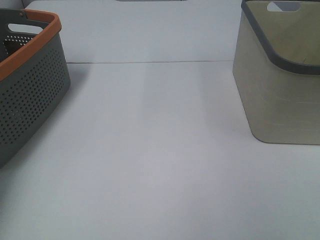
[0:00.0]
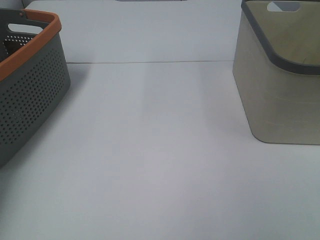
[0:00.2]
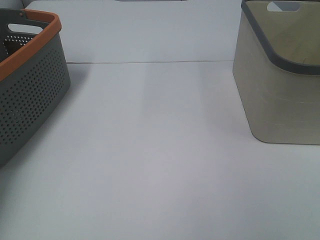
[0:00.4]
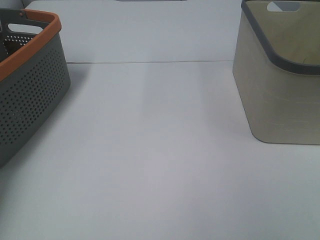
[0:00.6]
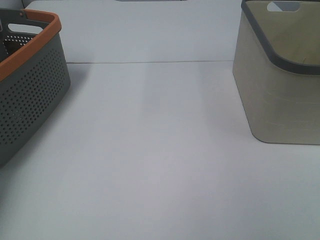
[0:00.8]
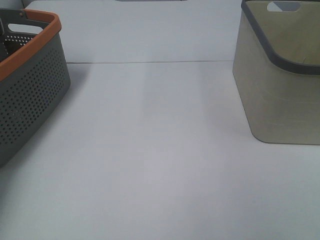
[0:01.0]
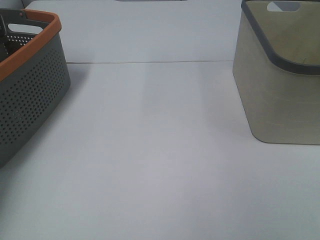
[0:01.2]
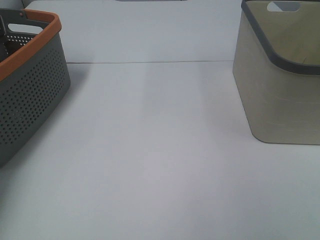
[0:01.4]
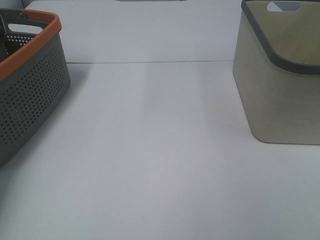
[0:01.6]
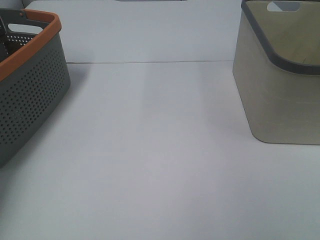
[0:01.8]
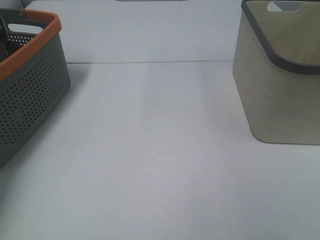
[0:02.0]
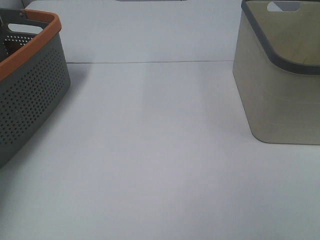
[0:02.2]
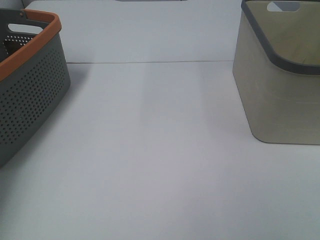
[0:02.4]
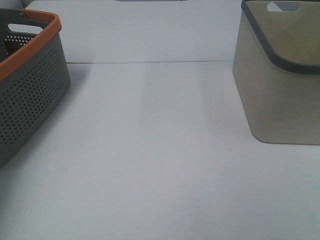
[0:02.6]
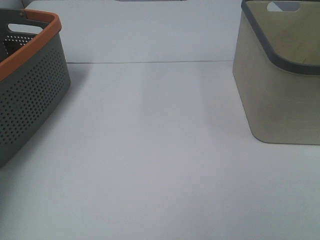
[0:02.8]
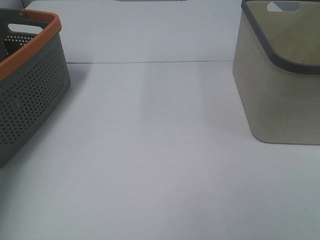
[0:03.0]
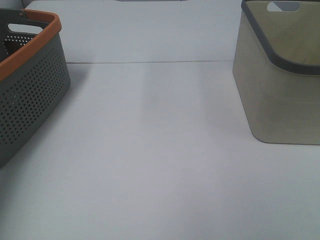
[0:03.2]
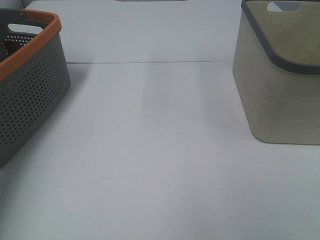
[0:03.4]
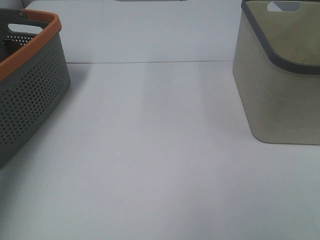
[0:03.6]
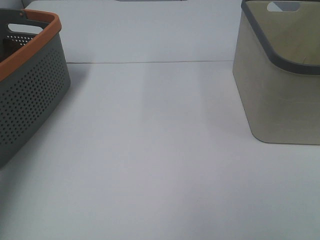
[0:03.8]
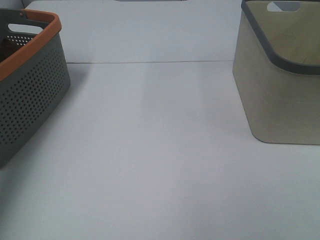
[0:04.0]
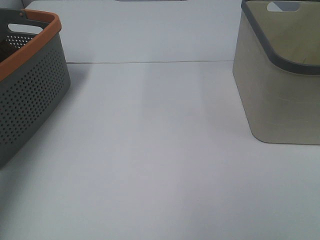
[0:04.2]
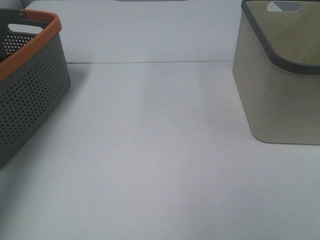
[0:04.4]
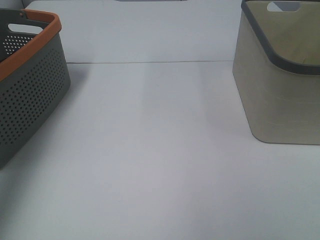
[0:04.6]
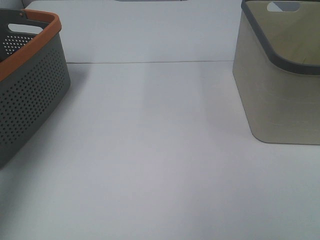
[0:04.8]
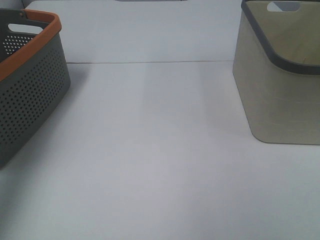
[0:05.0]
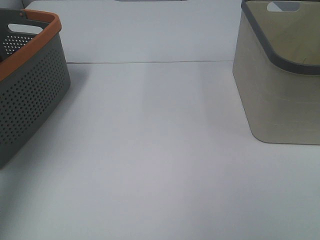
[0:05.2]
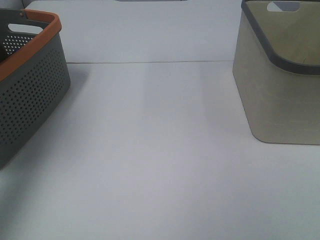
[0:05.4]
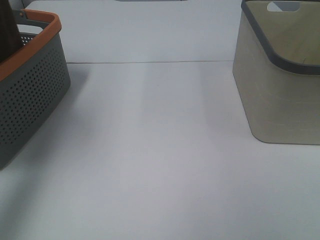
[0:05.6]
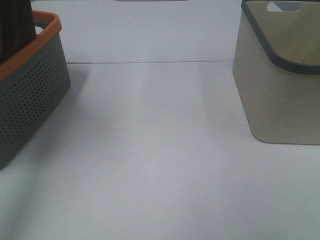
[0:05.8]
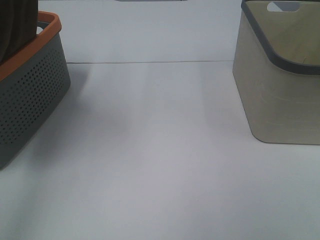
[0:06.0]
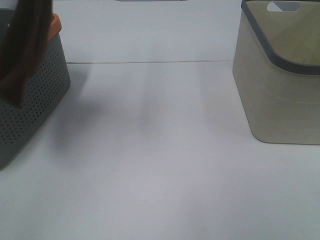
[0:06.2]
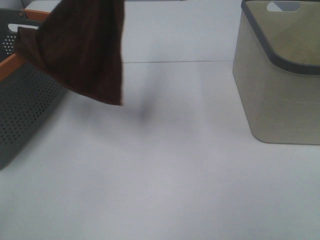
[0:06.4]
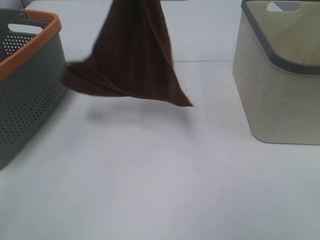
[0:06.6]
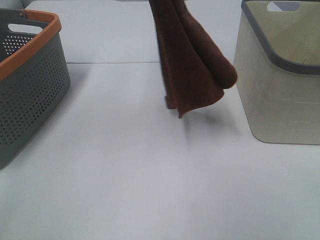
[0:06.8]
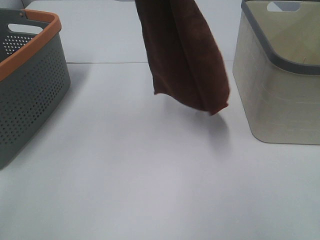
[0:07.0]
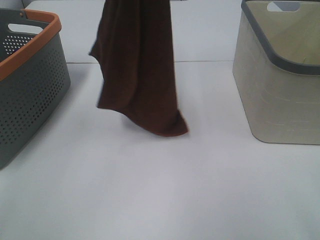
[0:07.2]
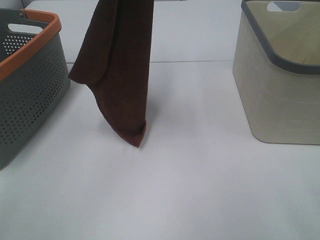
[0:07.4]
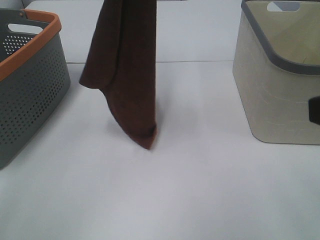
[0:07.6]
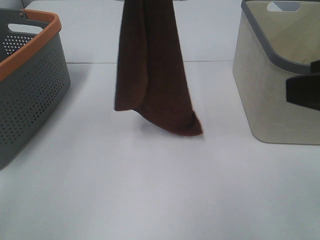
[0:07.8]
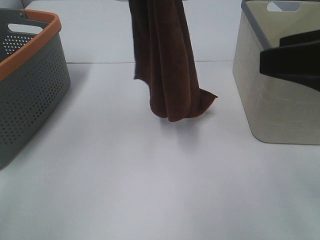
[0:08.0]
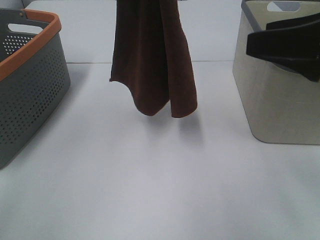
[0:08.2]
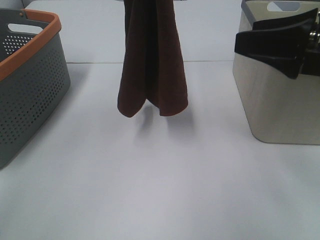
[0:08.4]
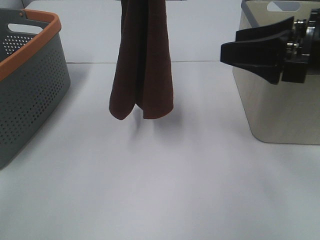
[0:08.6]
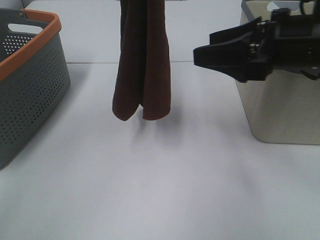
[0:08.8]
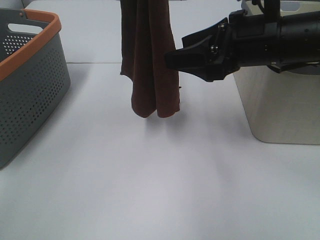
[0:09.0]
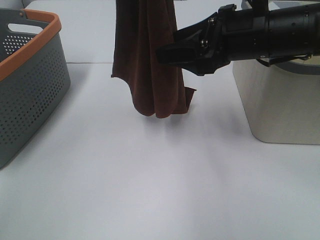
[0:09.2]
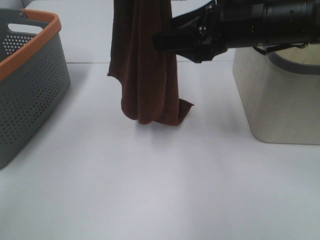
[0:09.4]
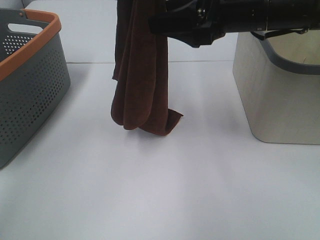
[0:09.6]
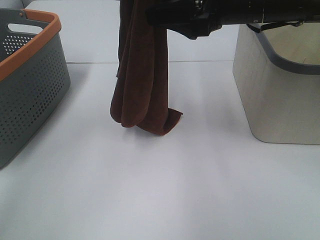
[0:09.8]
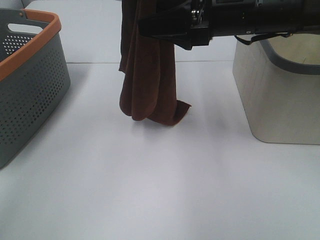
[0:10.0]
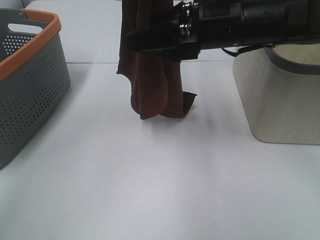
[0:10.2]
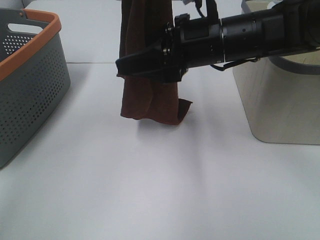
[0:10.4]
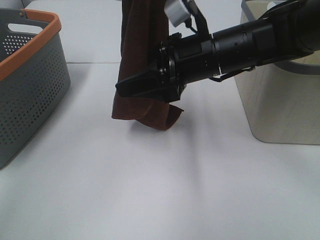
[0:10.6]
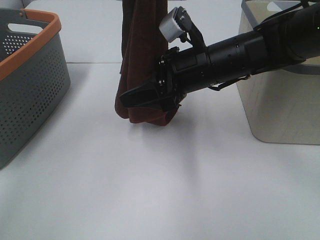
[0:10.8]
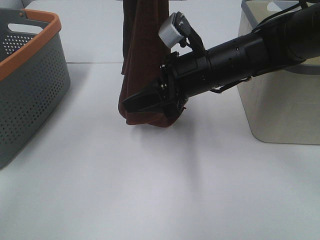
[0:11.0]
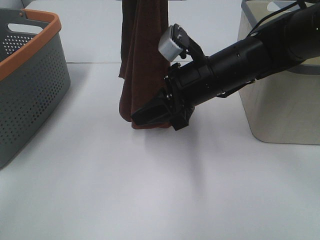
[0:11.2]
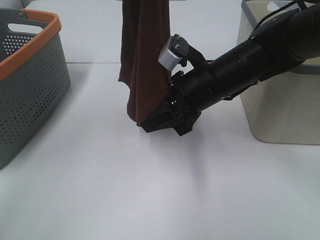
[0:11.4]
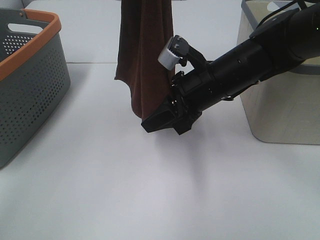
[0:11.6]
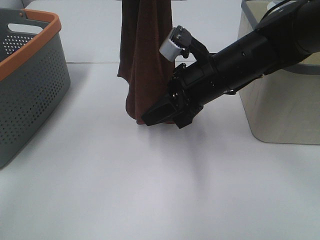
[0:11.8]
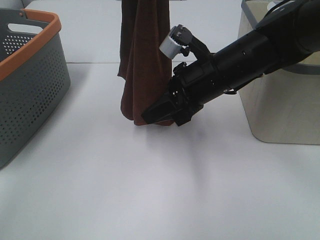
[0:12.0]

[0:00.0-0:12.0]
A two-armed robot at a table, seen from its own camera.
Task of the whole recording: Remove the towel and place it.
Step, 0:04.4 to 0:10.4: Right hand: grab a corner of the brown towel and straighten it.
0:04.4 to 0:06.0: The left gripper is displaced to the right by roughly 15 cm.
0:06.0 to 0:07.6: The right gripper shifts roughly 10 cm forward. Meanwhile the left gripper shifts some 10 cm to the right.
0:07.6 to 0:09.0: The right gripper goes roughly 20 cm forward, to the left and downward.
0:09.0 to 0:10.4: The right gripper moves to the left, about 5 cm.
0:10.4 to 0:12.0: The right gripper closes.

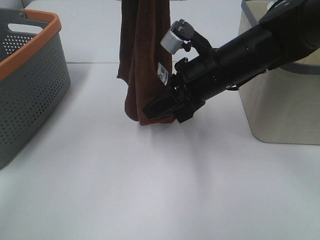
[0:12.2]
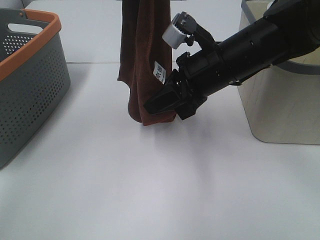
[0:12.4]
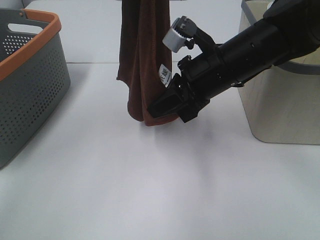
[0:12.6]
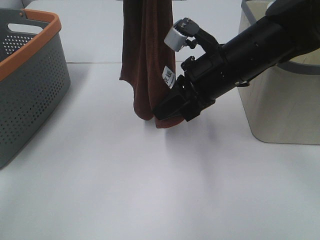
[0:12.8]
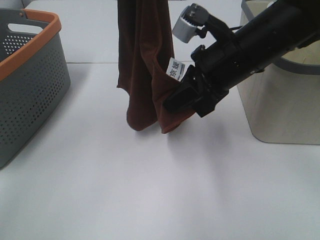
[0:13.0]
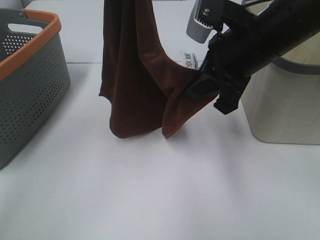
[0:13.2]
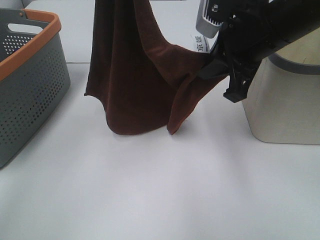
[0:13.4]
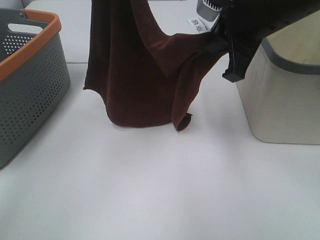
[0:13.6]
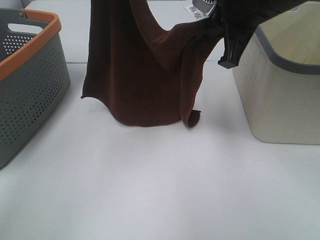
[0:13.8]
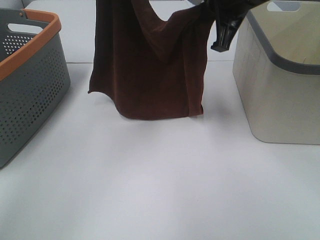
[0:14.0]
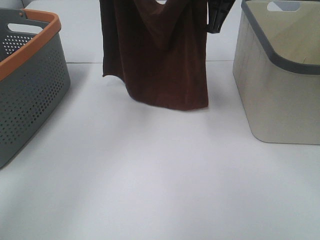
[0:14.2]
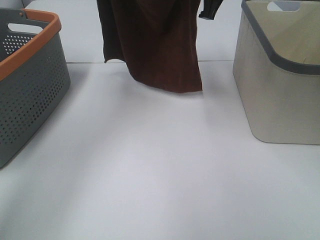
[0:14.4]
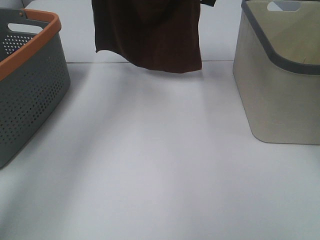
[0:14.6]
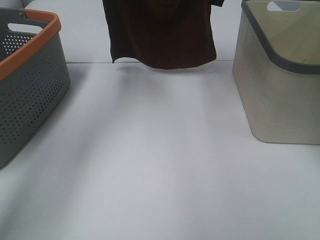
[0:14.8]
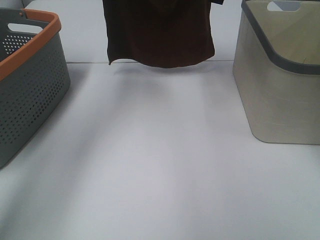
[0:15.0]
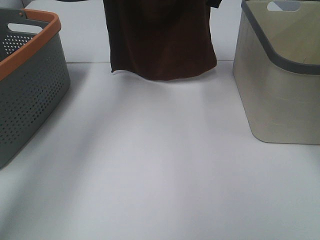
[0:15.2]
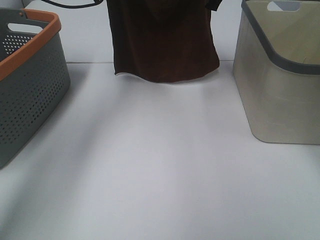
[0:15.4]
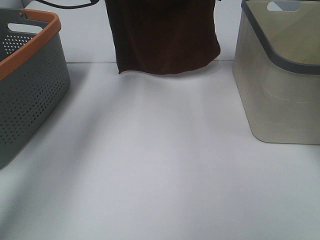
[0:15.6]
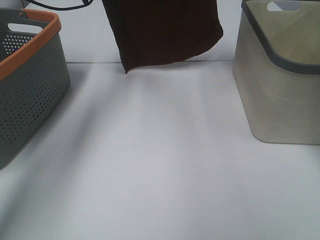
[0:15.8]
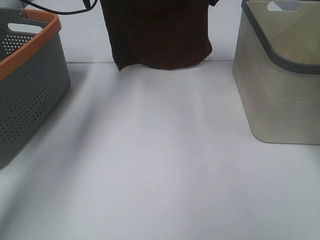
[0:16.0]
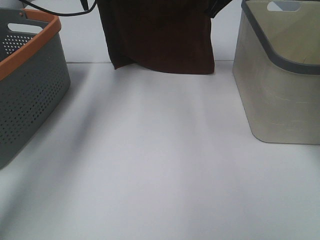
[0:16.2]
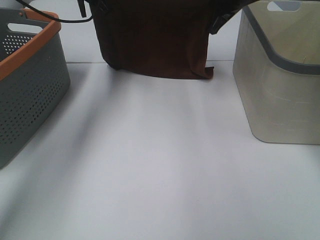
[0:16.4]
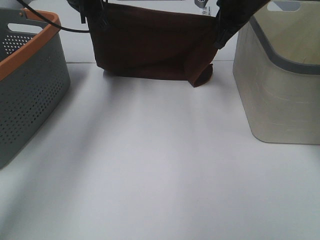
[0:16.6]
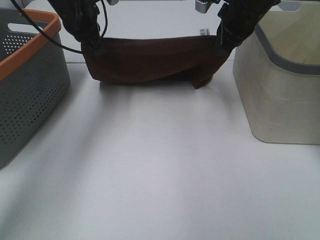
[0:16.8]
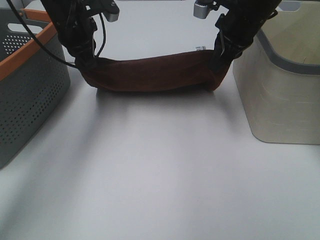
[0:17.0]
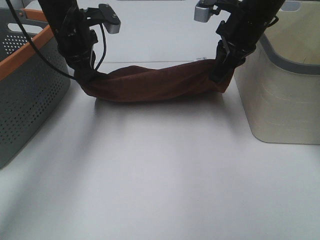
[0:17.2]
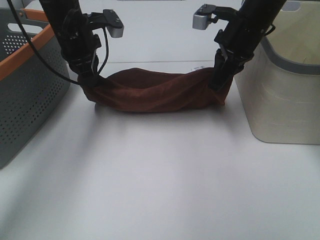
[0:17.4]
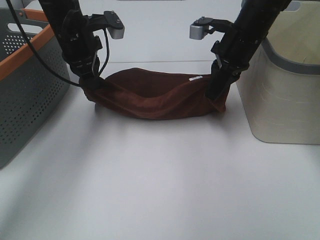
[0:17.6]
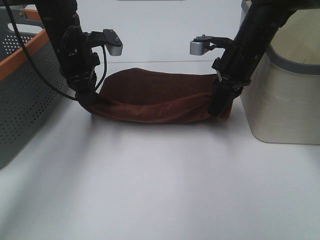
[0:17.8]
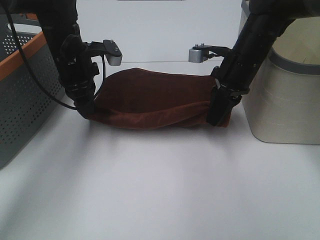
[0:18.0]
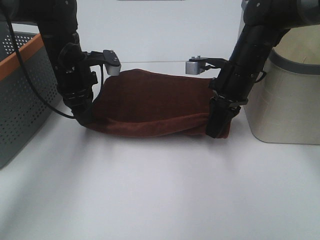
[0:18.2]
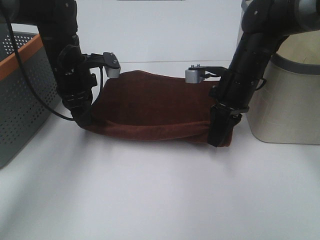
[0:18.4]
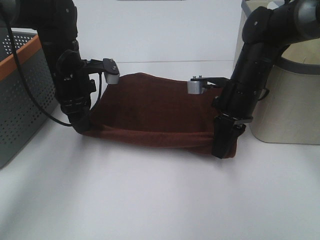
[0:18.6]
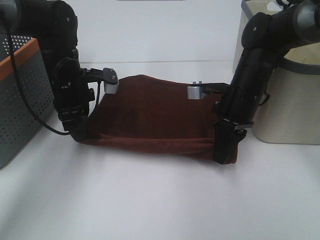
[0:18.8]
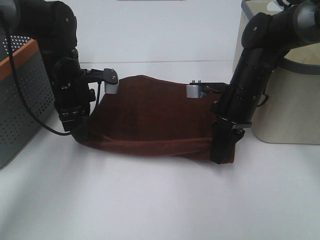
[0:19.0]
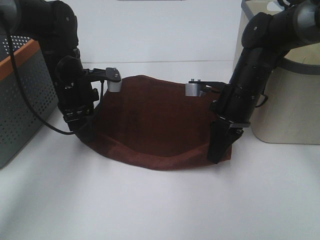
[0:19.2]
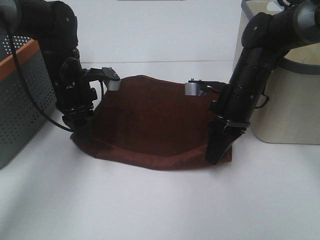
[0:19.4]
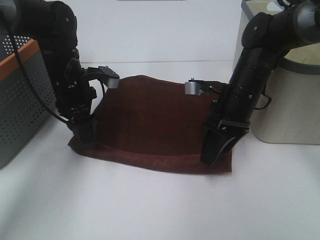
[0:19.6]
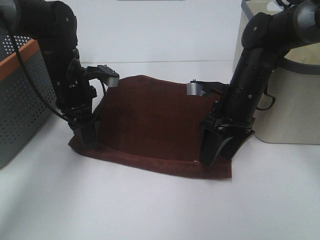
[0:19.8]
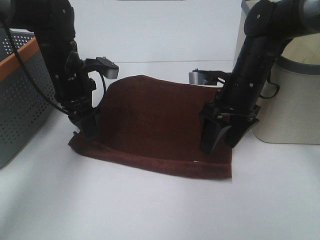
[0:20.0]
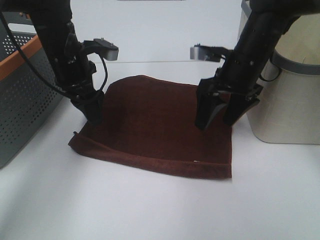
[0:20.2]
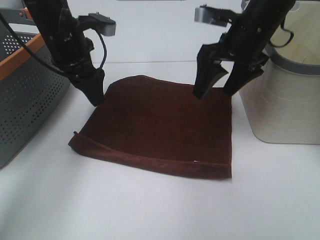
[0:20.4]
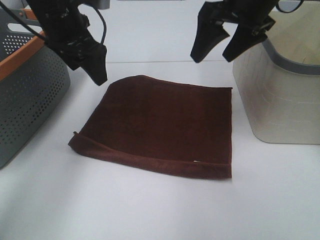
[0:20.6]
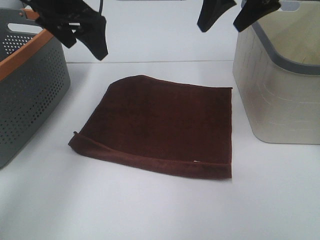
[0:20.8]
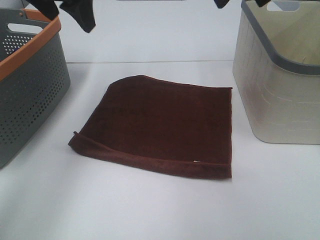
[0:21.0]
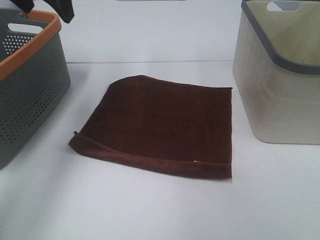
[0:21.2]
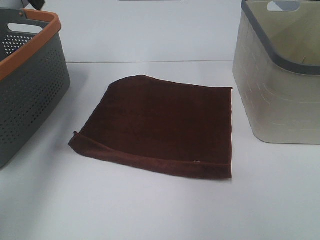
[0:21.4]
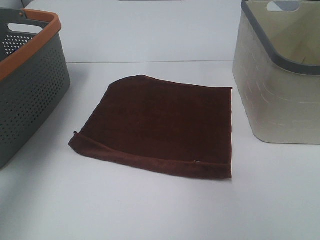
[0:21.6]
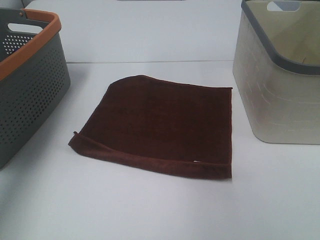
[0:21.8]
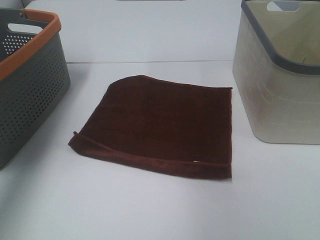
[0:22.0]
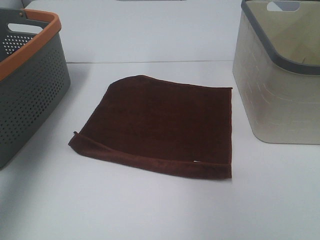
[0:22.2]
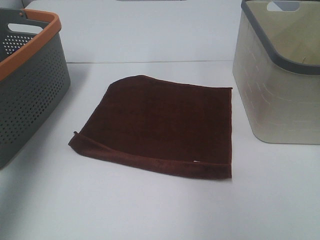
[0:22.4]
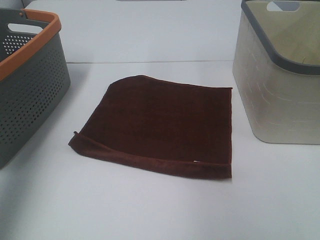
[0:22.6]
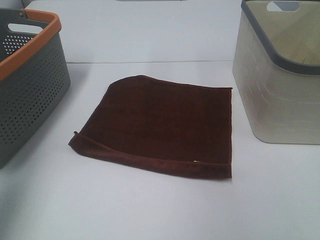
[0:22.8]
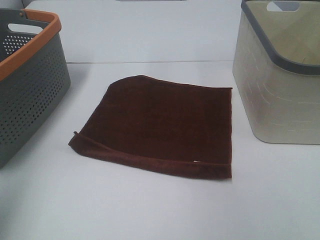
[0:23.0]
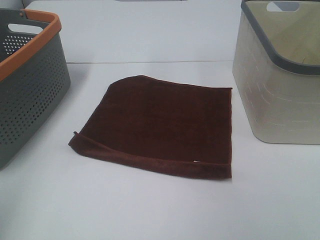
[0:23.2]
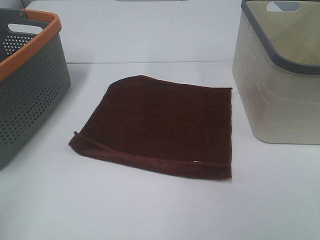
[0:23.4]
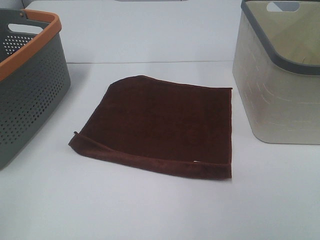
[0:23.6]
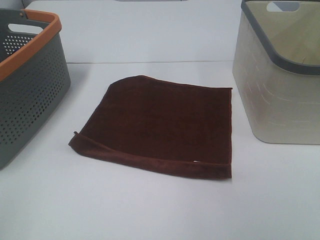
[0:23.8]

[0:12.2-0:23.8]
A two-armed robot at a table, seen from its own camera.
Task of the whole recording: Remove the towel and place it.
Step, 0:12.2 to 0:14.0: Left hand: spread the brown towel flat on the table.
Step, 0:12.2 to 0:14.0: Right hand: spread the brown towel flat on the table.
0:12.2 to 0:13.6: The right gripper heads upward, covering roughly 10 cm.
0:13.6 to 0:15.0: The left gripper heads forward and downward, covering about 15 cm; the right gripper travels forward by roughly 15 cm.
0:15.0 to 0:16.6: The two grippers go roughly 10 cm downward.
0:16.6 to 0:18.0: The two grippers go roughly 10 cm downward and backward.
0:18.0 to 0:19.4: The right gripper ends up some 5 cm from where it was, and opens up.
0:19.4 to 0:21.0: Both grippers travel together upward, about 25 cm. The right gripper opens. Meanwhile the left gripper opens its fingers.
0:21.0 to 0:22.4: The left gripper travels to the left, backward and upward by about 25 cm.
0:22.4 to 0:23.8: The left gripper goes some 30 cm backward and downward.
